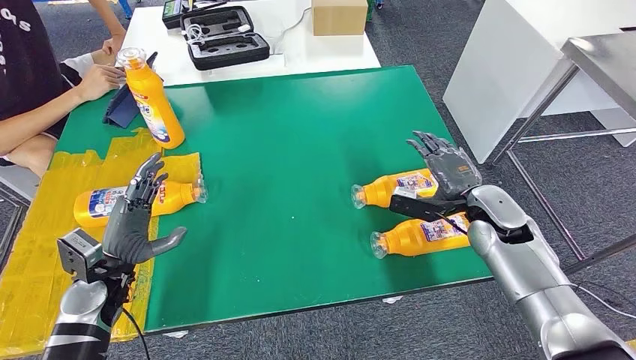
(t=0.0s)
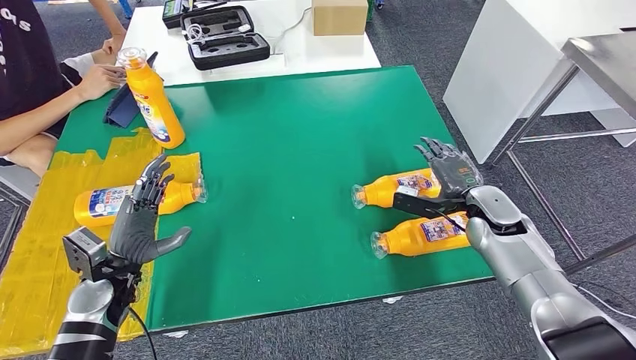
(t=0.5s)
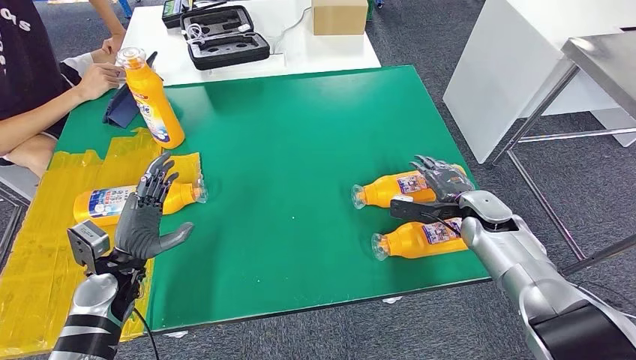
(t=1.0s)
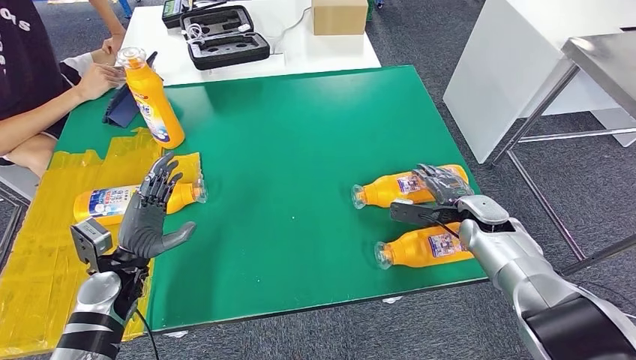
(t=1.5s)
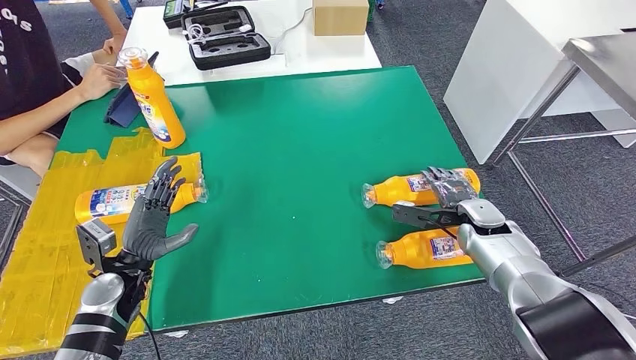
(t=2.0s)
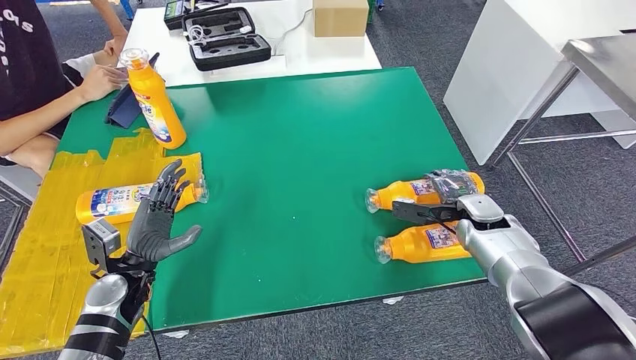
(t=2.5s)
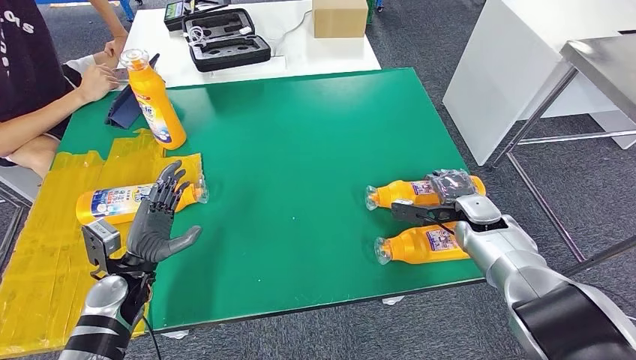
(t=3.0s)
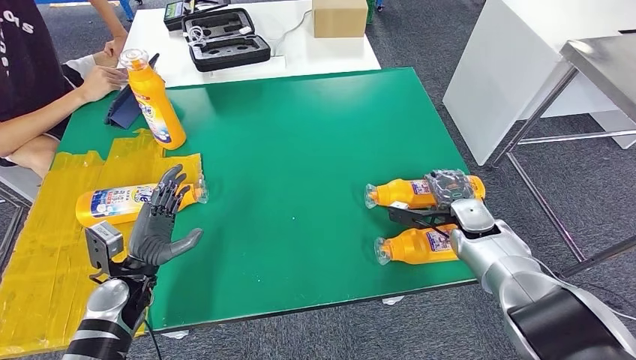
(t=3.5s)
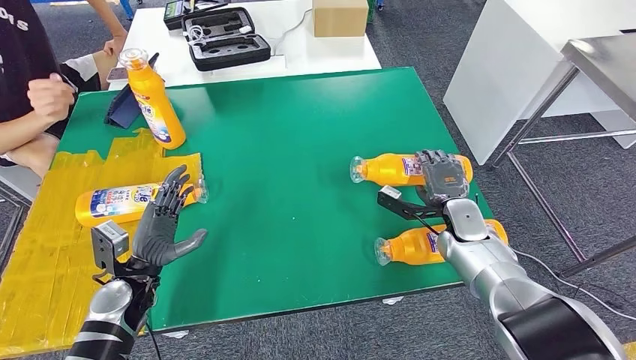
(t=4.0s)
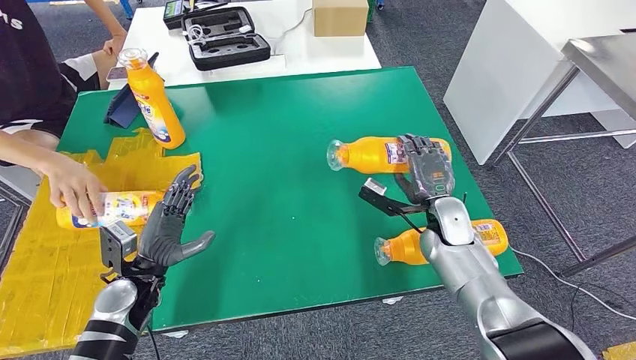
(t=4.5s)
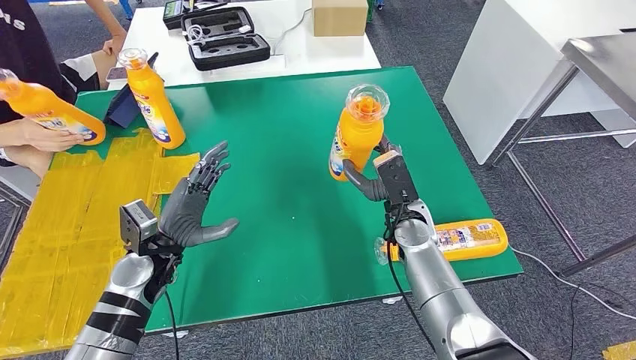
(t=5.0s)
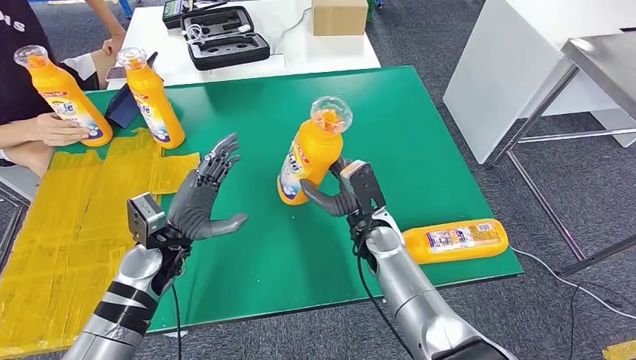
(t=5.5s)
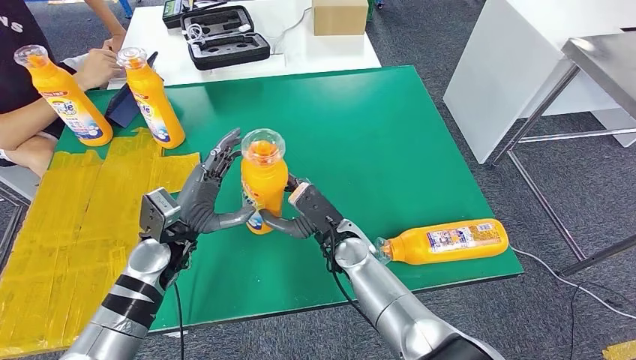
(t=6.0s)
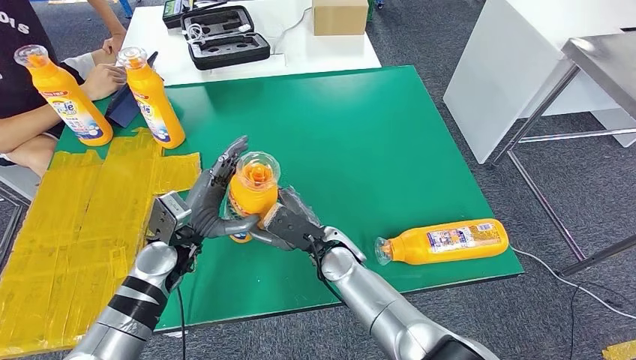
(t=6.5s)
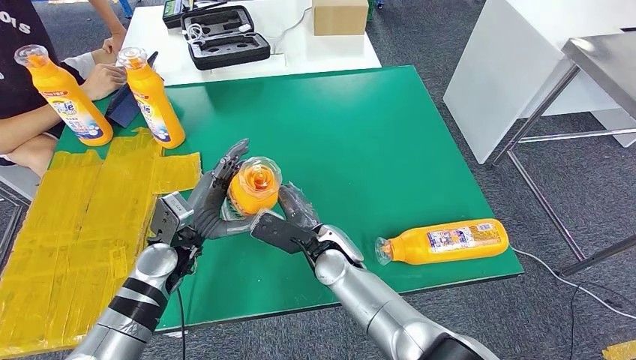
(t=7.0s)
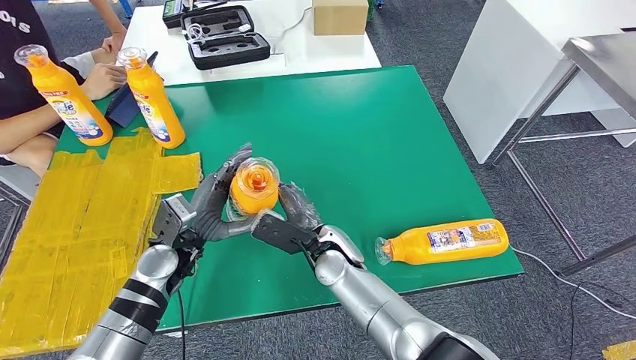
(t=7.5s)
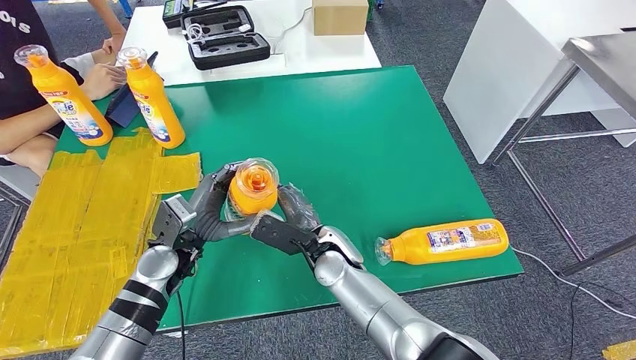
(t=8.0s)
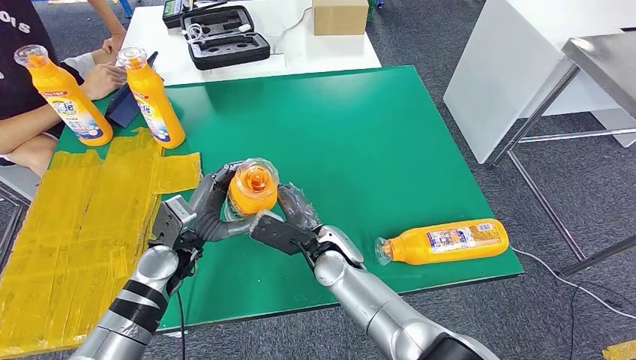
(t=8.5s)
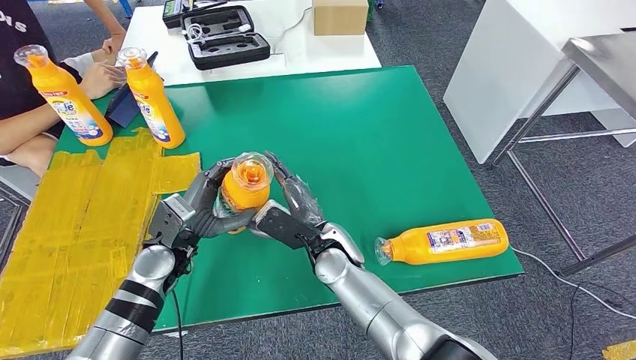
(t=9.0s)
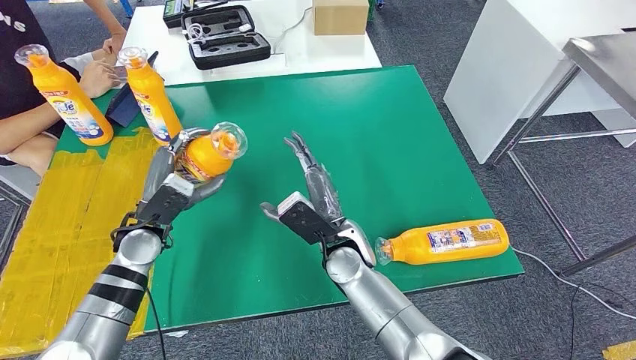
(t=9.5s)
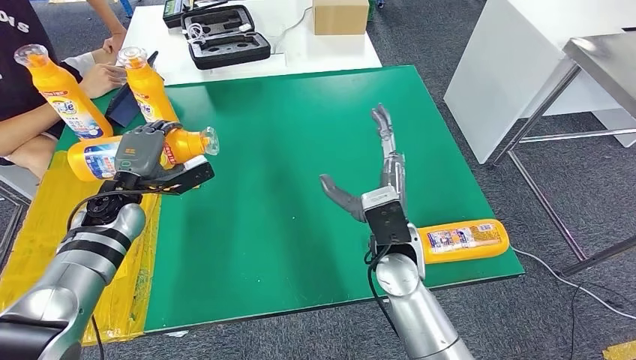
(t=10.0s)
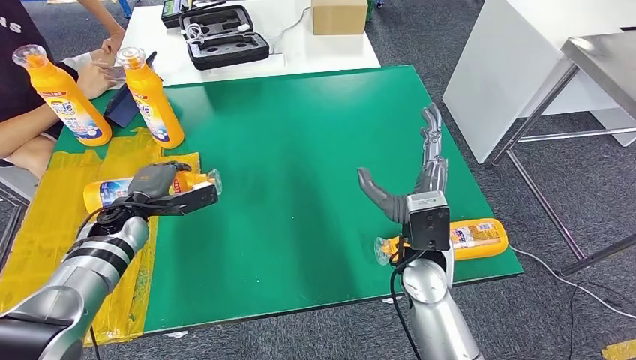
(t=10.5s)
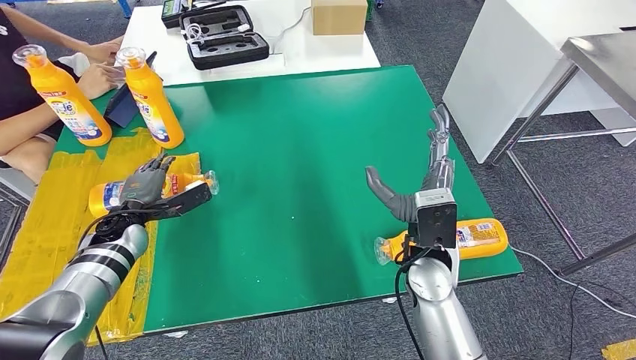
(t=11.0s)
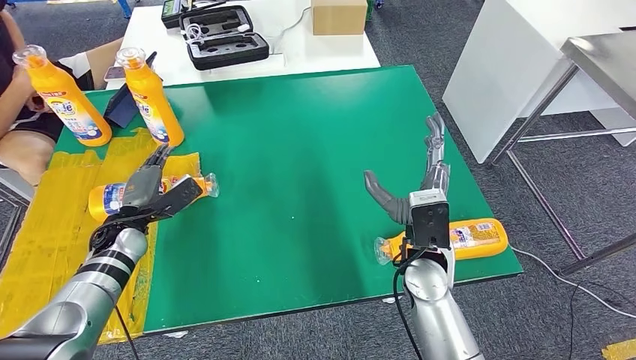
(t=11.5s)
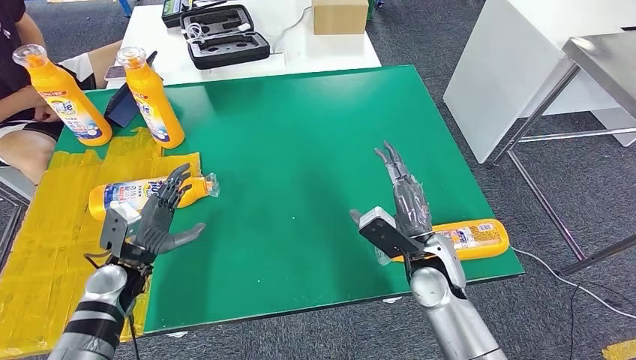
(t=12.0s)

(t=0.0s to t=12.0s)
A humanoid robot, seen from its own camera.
Step, t=0.0s - t=4.0s: Pick up the fast-moving consumer goods bottle from the table.
Step, t=5.0s - t=11.5s: Flip the fast-moving consumer goods bottle to the front side.
t=0.0s - t=2.0s: The right hand moves downward, roughly 5 cm.

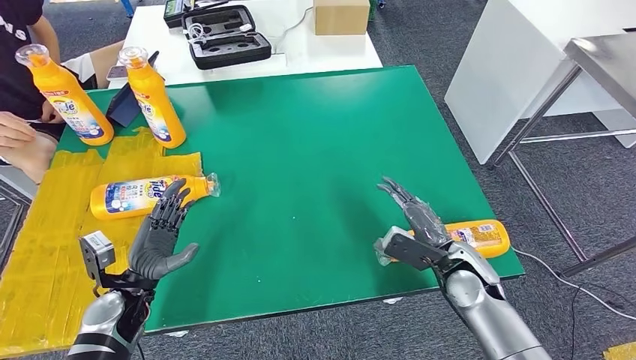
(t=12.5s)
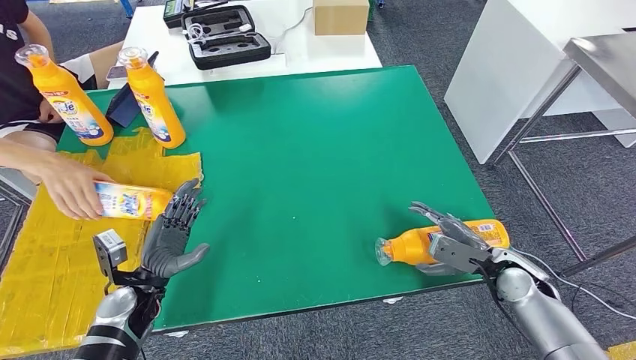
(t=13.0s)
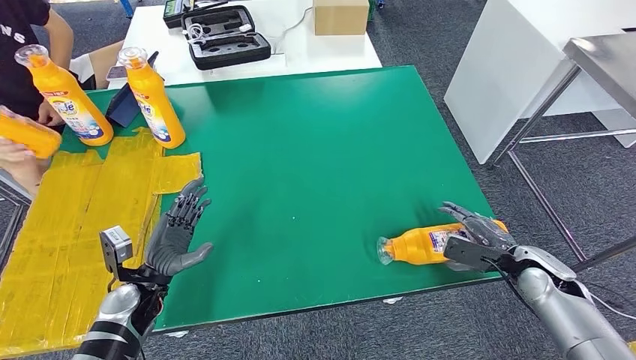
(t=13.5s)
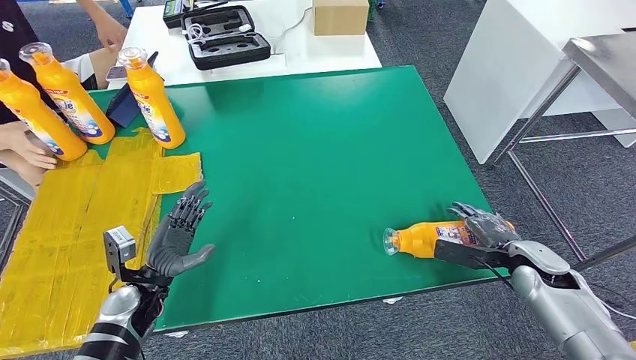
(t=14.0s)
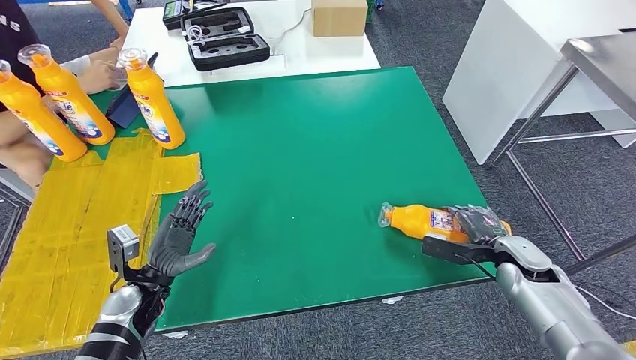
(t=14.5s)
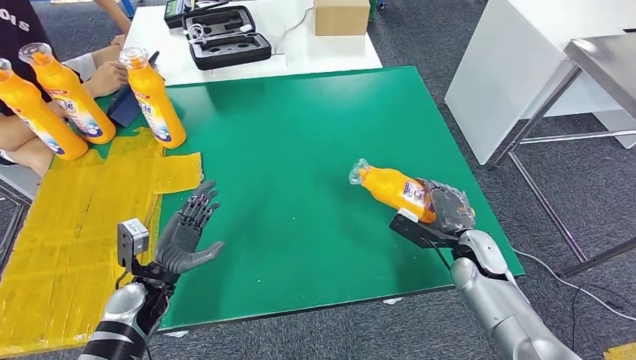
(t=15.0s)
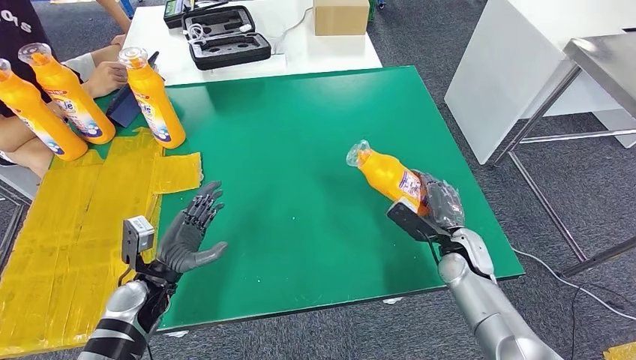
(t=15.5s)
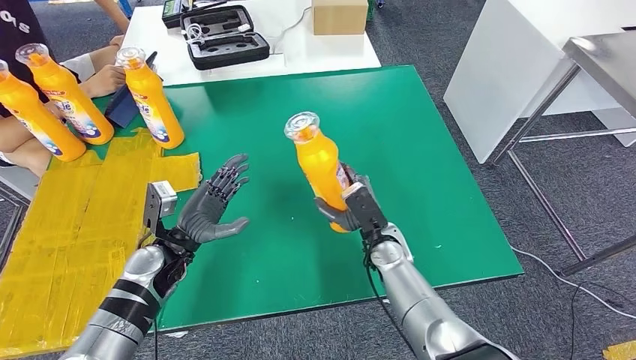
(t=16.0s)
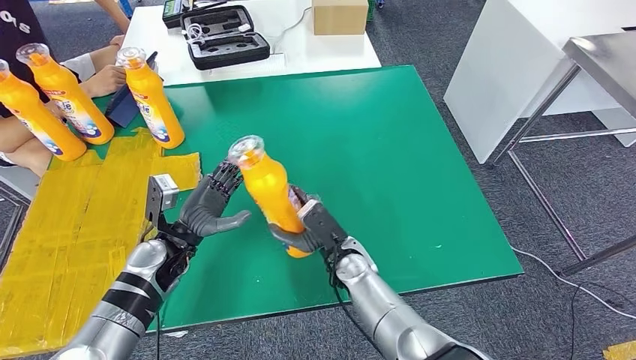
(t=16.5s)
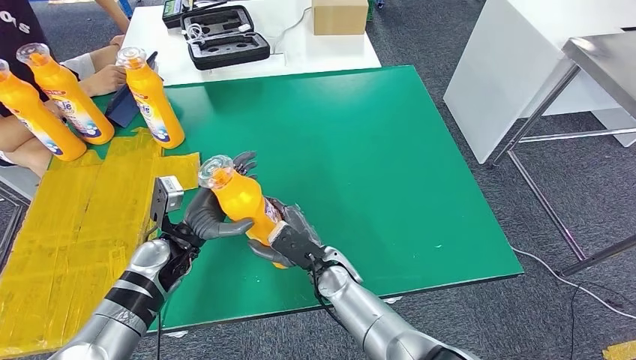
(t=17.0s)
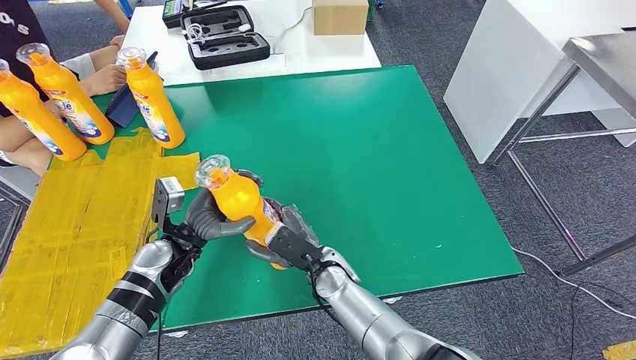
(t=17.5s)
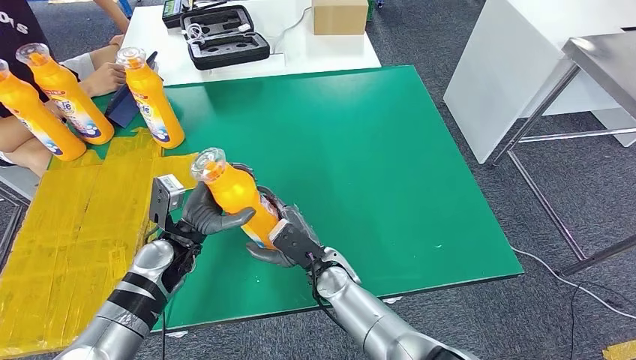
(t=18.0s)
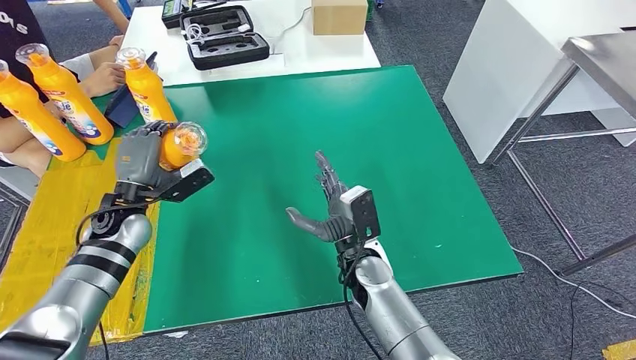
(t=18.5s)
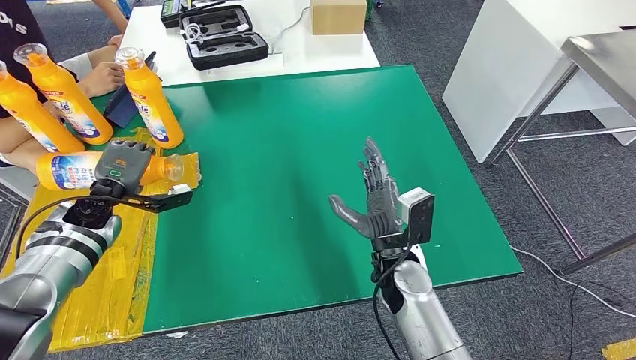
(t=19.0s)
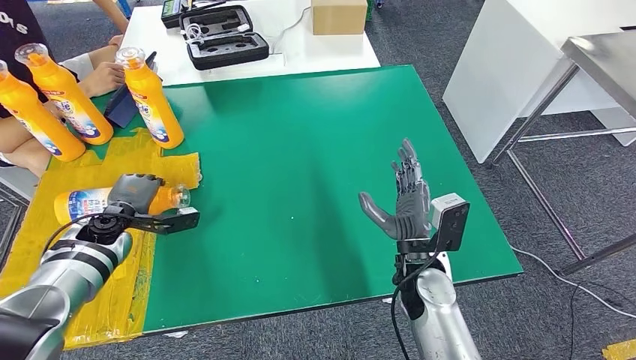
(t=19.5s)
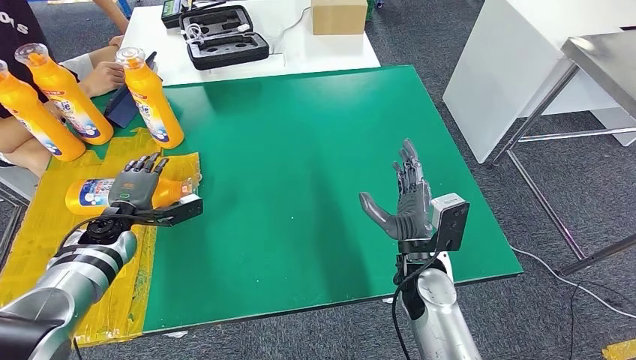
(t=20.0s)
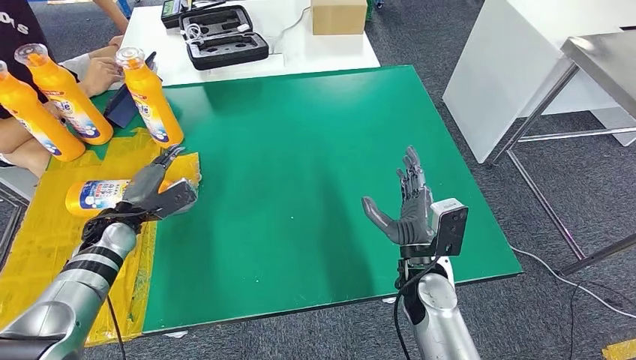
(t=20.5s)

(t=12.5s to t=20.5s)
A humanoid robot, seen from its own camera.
Step, t=12.5s - t=15.5s: Pick up the fast-moving consumer goods bottle from the table.
Step, t=16.0s - t=20.5s: Flip the fast-moving consumer goods bottle to the front side.
t=16.5s - t=18.5s: The left hand heads to the left, forward and upward, covering some 10 cm.
t=18.5s - t=20.5s: The left hand shifts about 5 cm downward; the right hand is displaced to the right by roughly 10 cm.
